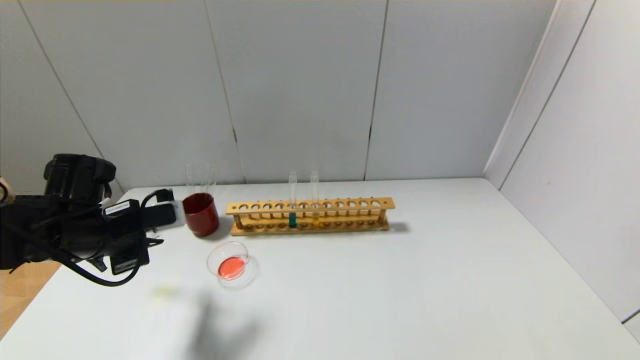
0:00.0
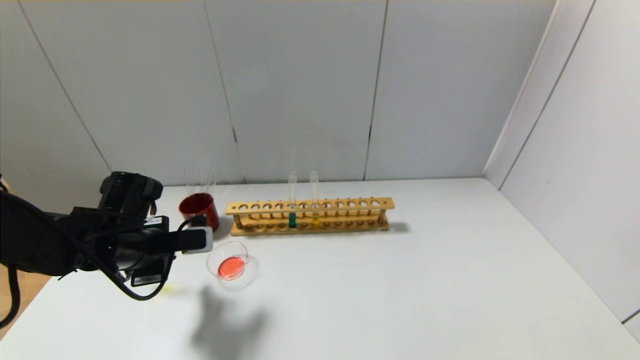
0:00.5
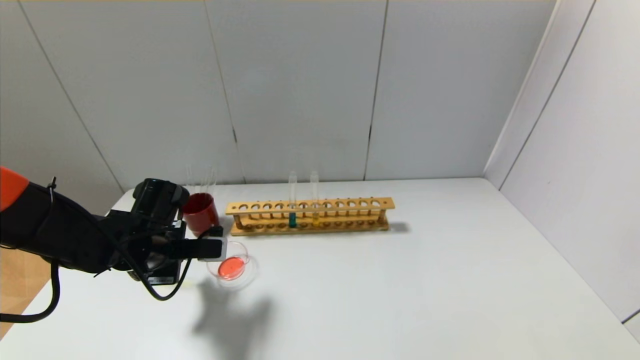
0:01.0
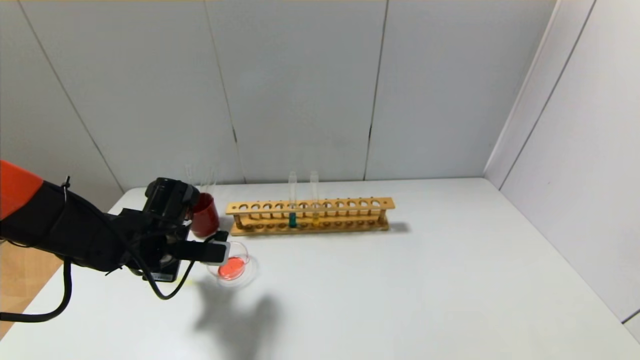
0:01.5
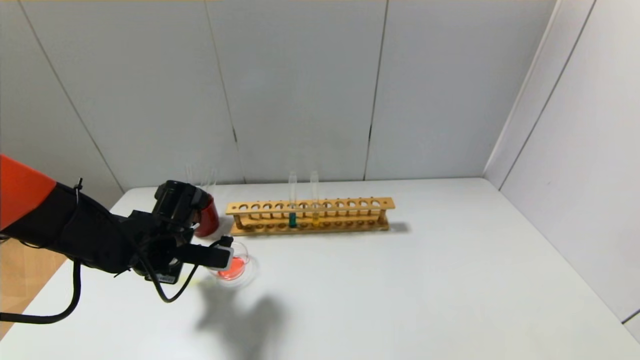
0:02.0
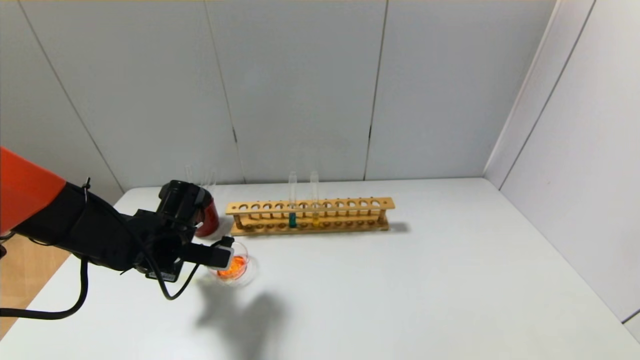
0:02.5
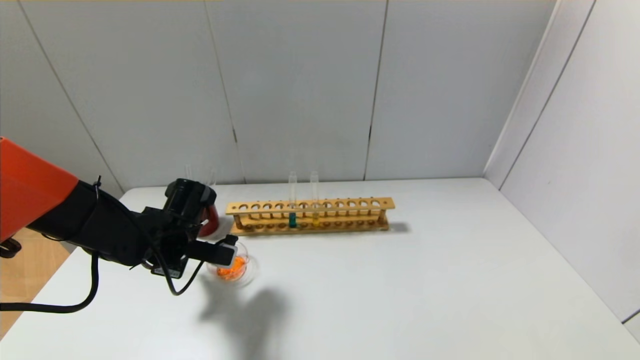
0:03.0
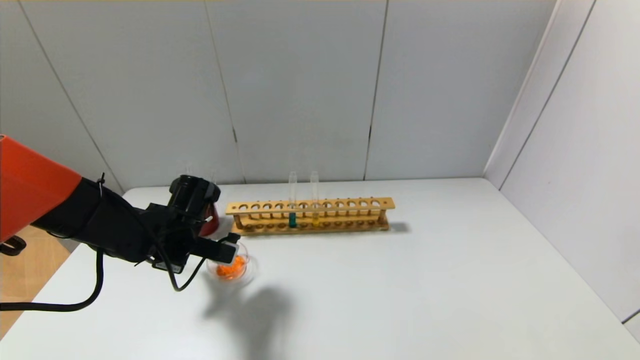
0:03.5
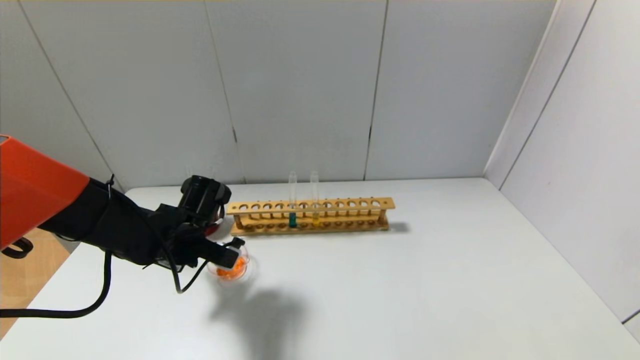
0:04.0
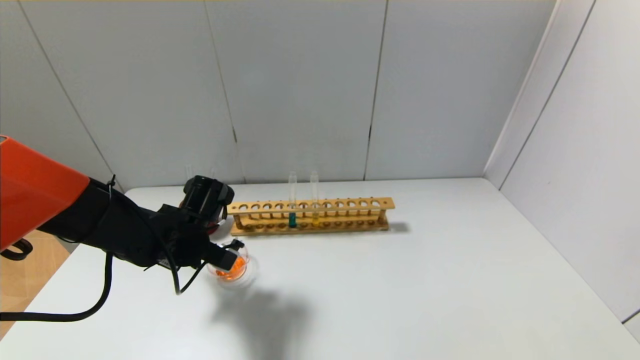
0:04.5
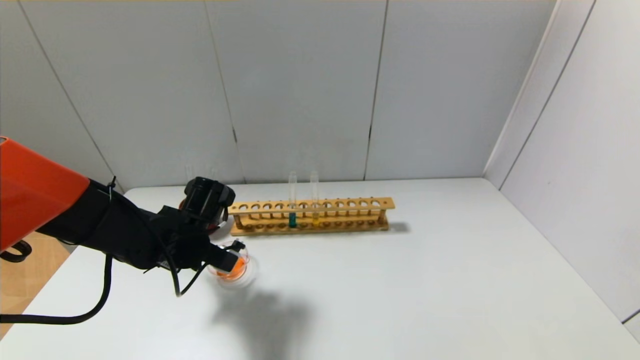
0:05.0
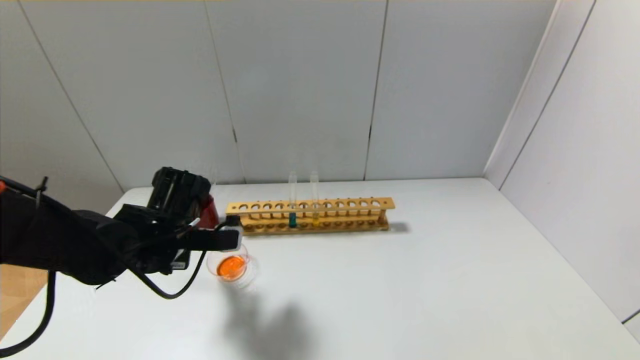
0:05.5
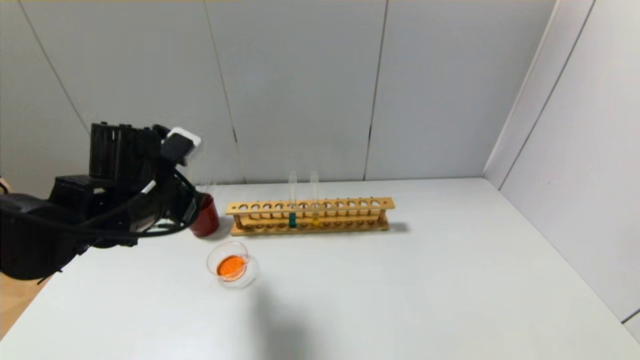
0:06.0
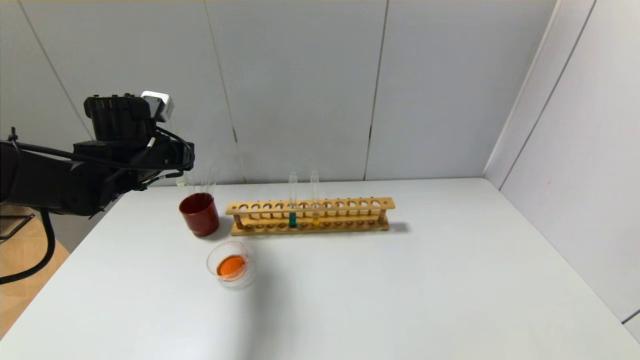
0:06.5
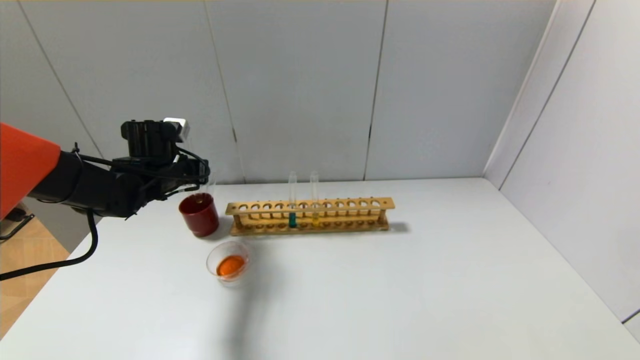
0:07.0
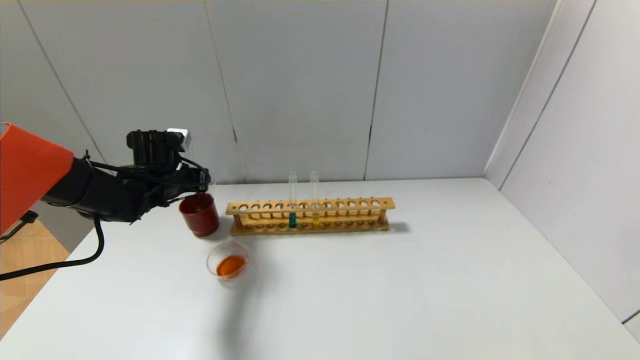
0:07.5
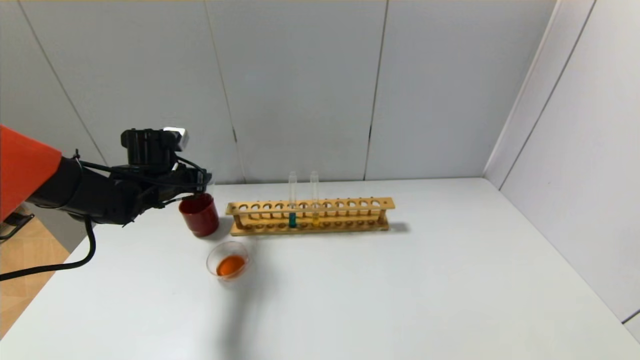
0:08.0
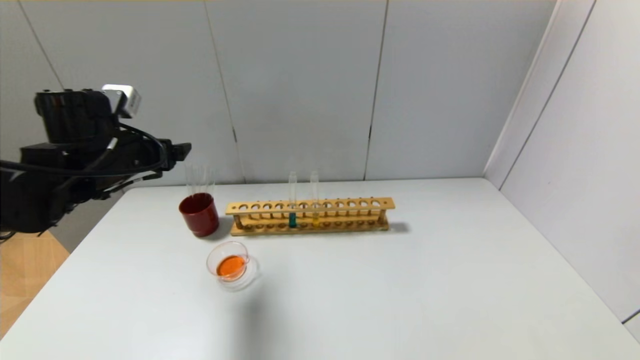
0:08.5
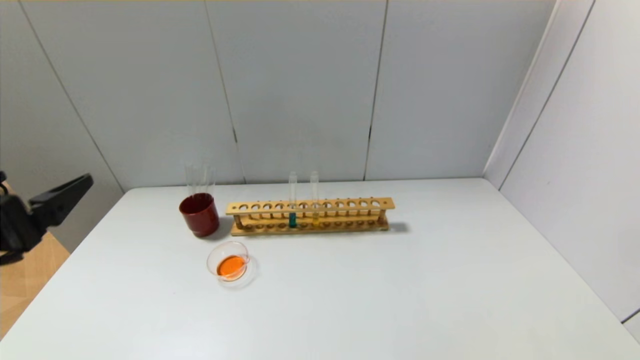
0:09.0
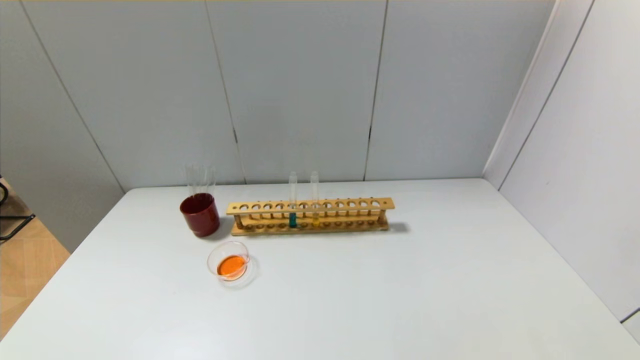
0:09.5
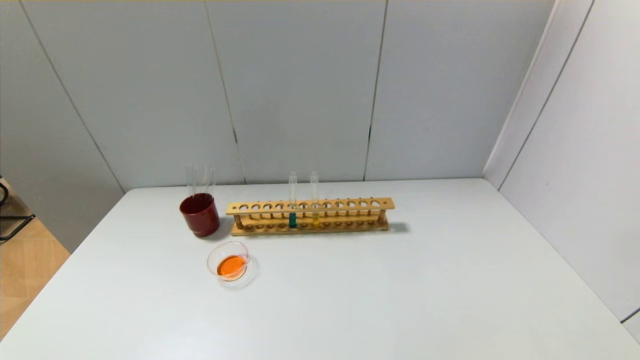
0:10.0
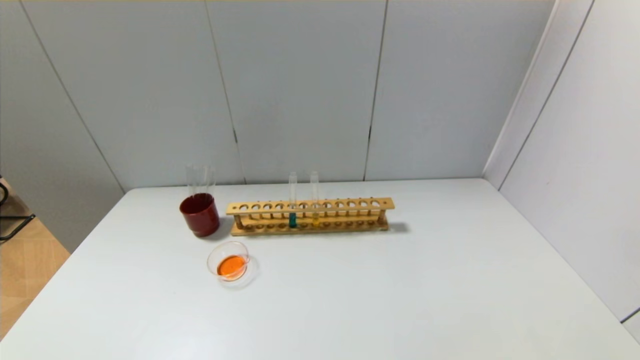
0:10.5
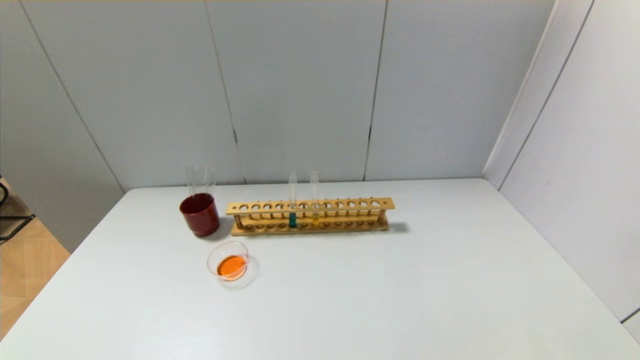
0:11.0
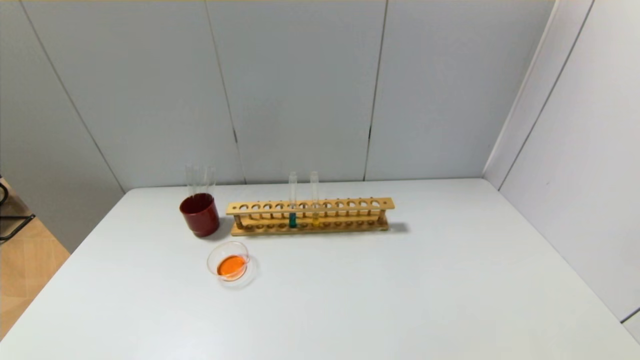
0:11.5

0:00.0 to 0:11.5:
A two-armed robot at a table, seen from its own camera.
Step, 0:00.0 to 0:05.0: Pour the yellow reagent into the graduated cylinder with the left gripper.
Step, 0:05.5 to 0:08.0: Place the test tube into the brown cup with the left gripper.
0:00.0 to 0:02.0: The left gripper is displaced to the right and downward by roughly 10 cm.
0:02.0 to 0:04.0: The grippers move only a little.
0:04.0 to 0:06.0: The left gripper is displaced upward by about 10 cm.
0:06.0 to 0:07.5: The left gripper travels forward and downward by approximately 15 cm.
0:07.5 to 0:09.5: The left gripper moves backward, roughly 40 cm, and opens.
